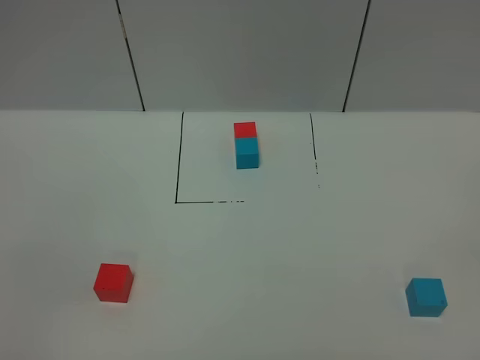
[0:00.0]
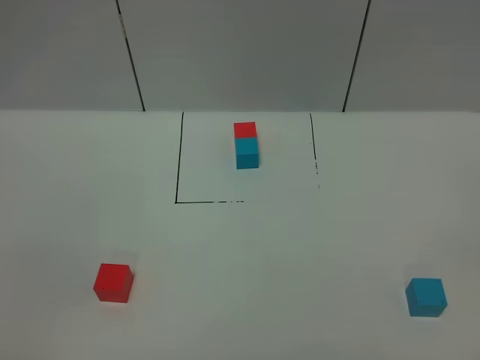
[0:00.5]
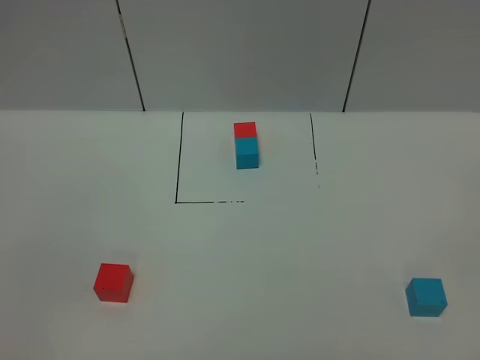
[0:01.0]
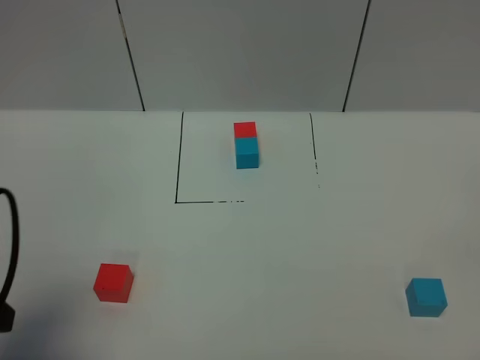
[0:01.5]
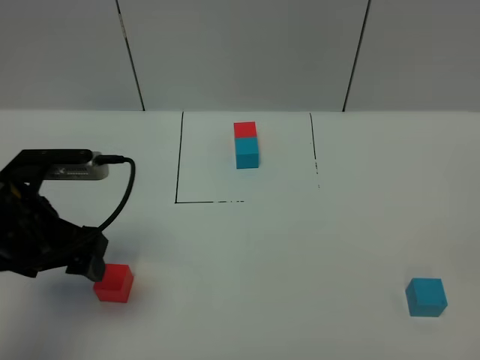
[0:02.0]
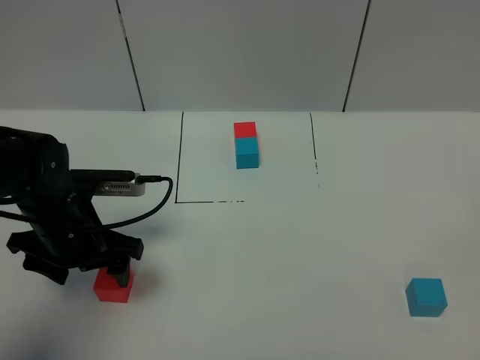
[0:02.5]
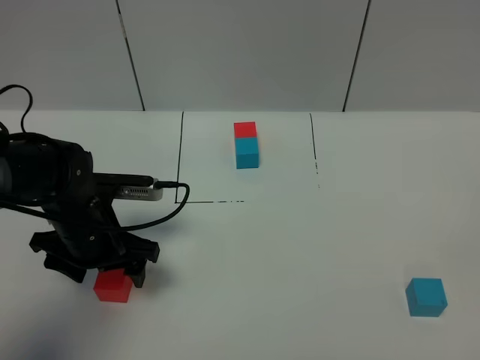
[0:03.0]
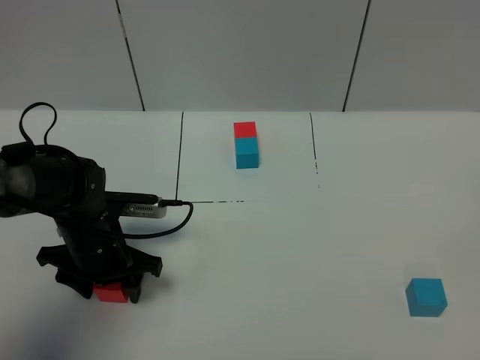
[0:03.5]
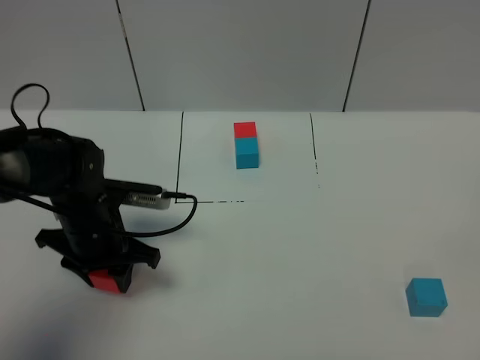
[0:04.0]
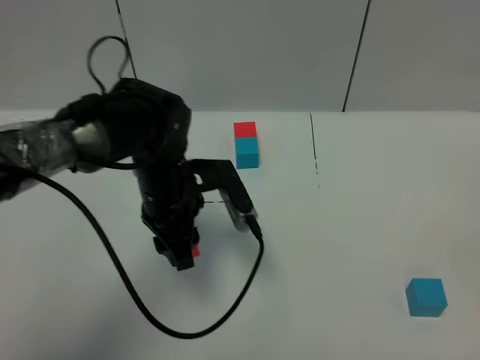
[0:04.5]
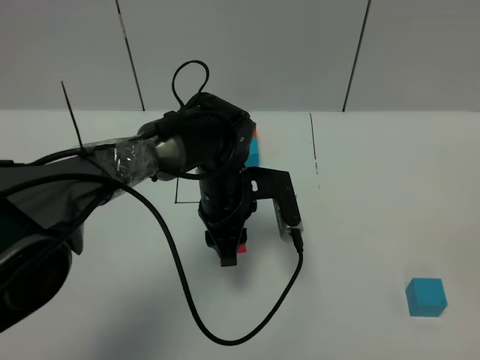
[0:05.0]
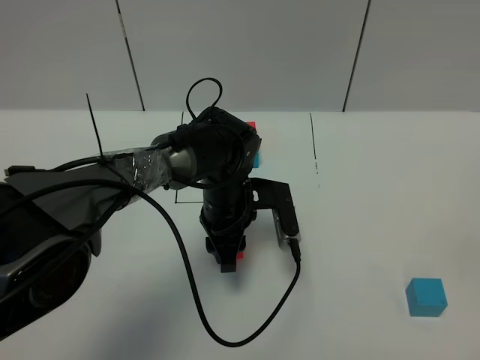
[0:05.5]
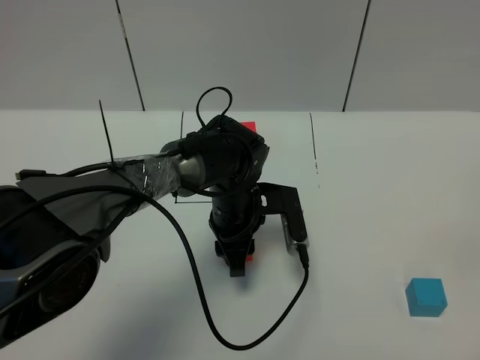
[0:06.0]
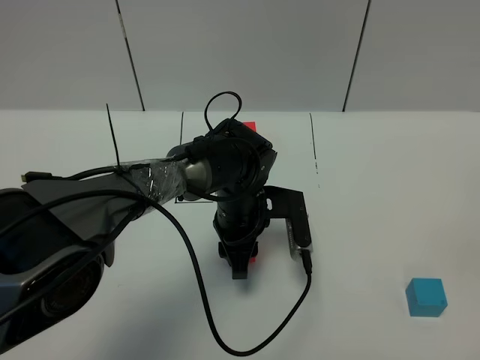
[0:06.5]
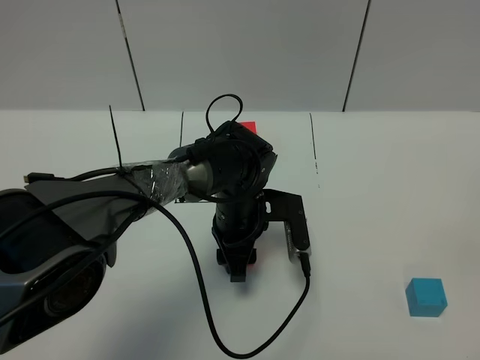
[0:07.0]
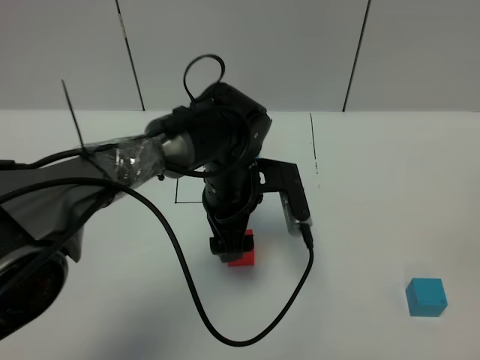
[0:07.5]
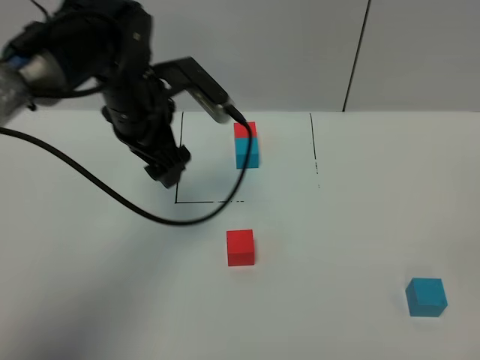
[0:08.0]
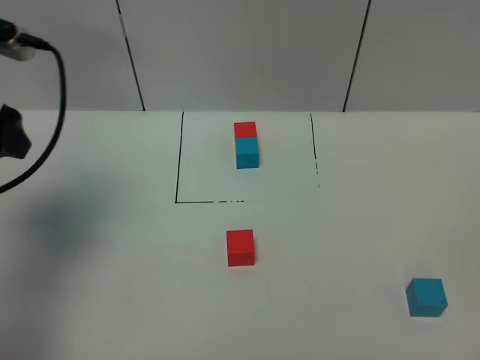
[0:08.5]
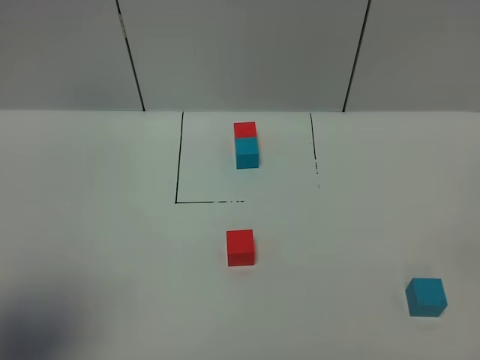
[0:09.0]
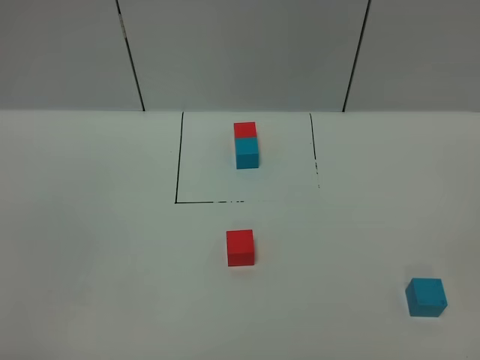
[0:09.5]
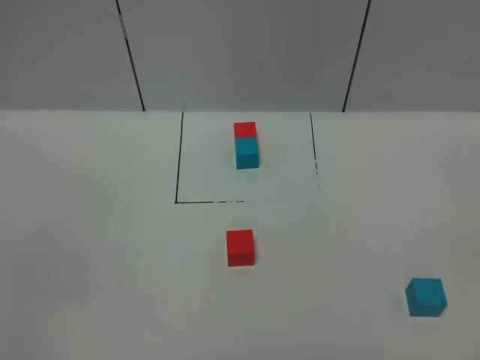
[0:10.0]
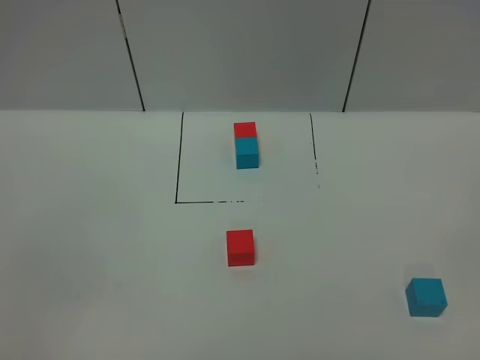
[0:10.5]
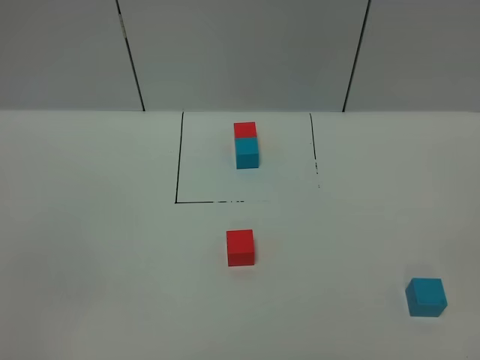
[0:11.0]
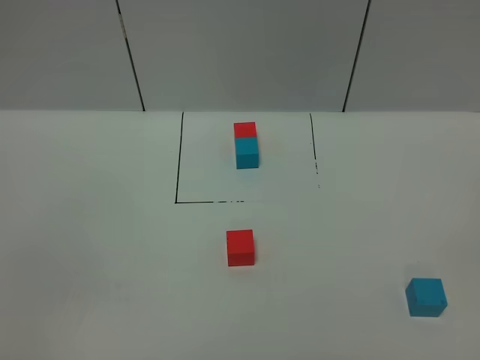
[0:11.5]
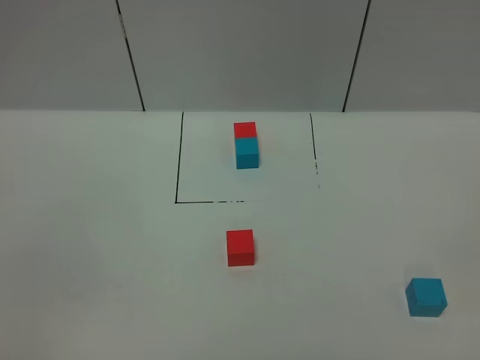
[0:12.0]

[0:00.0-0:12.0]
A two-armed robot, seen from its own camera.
Task of the whole recording: According to the building block template in front, assemble the scattered blocks together.
Step, 0:01.5 to 0:07.5: Put the red cube in the center of the table.
0:00.0 to 0:02.0: The left gripper moves forward, some 30 cm.
0:02.0 to 0:04.0: The left gripper is displaced downward and forward by approximately 10 cm, and closes its fingers.
0:04.0 to 0:06.0: The left gripper is displaced to the right by some 20 cm.
0:06.0 to 0:08.0: The left gripper shifts about 20 cm upward and to the left, and opens.
0:08.0 to 0:10.0: The left gripper travels backward by about 40 cm.
0:10.0 to 0:12.0: Both grippers stay put.

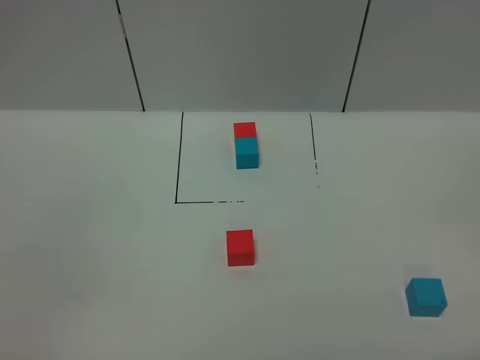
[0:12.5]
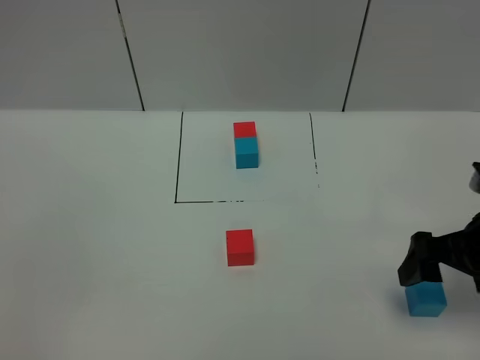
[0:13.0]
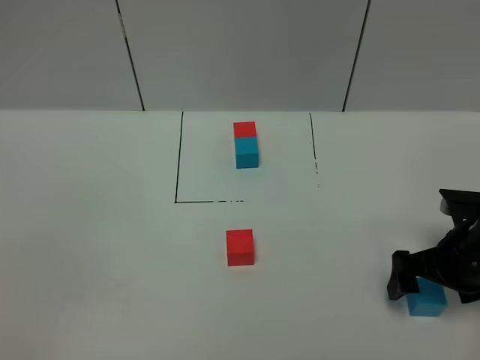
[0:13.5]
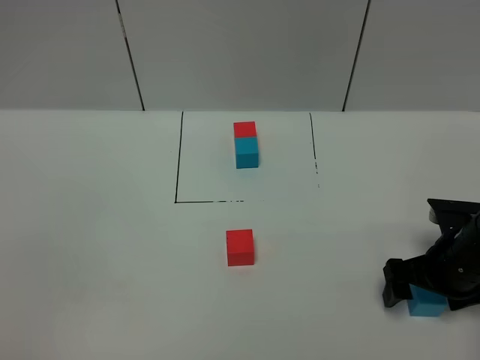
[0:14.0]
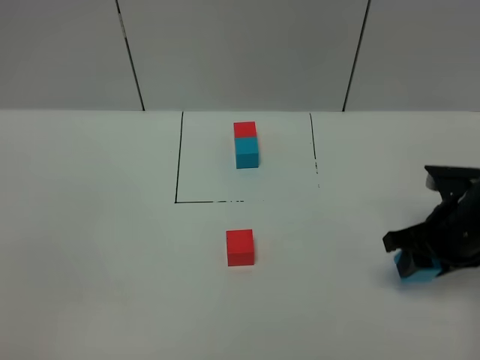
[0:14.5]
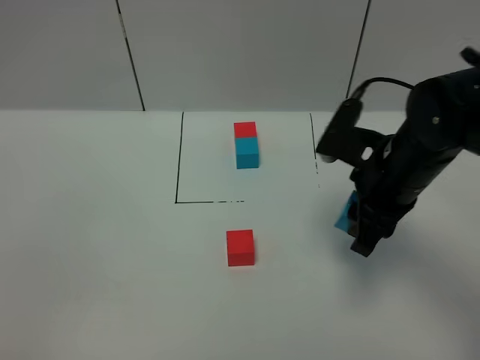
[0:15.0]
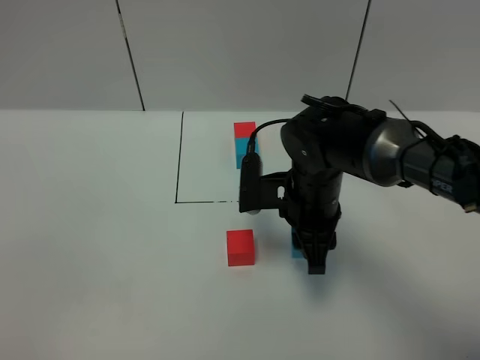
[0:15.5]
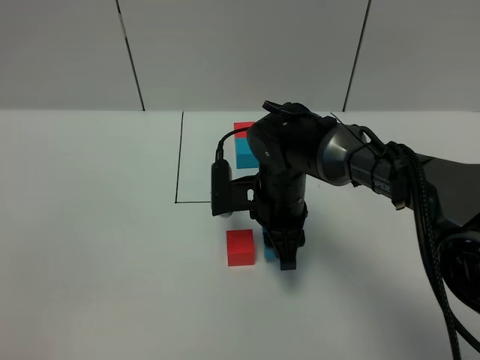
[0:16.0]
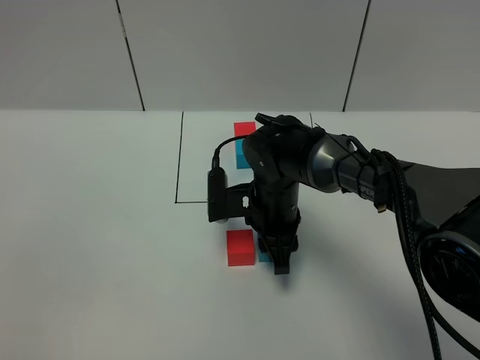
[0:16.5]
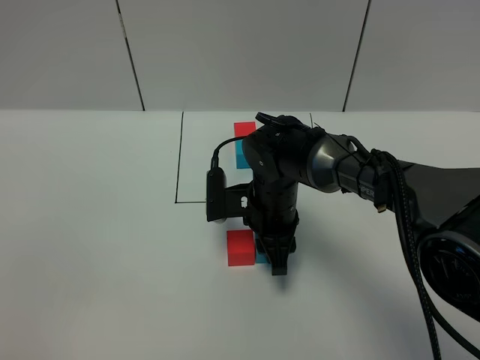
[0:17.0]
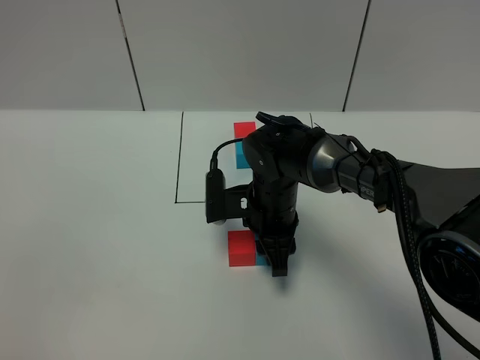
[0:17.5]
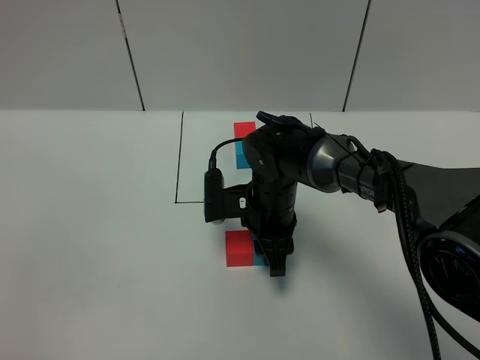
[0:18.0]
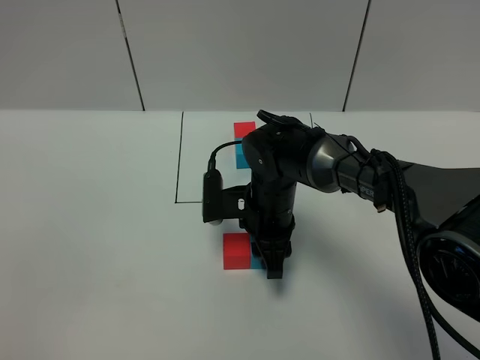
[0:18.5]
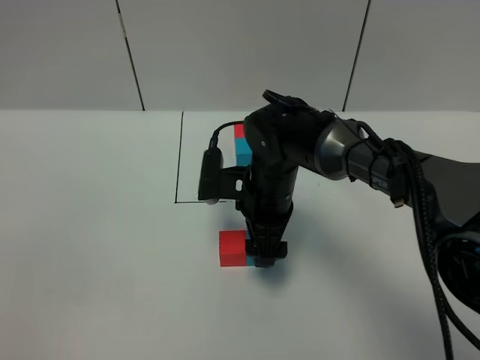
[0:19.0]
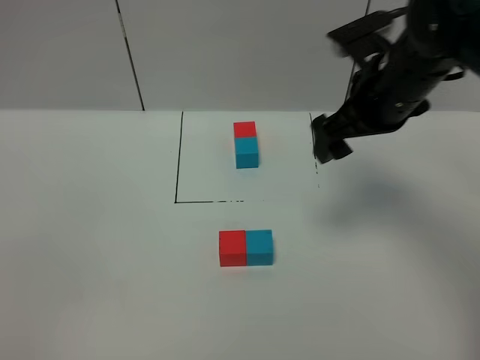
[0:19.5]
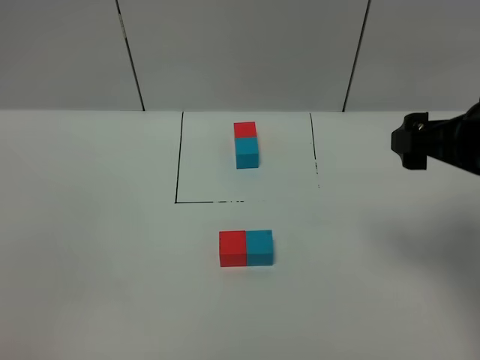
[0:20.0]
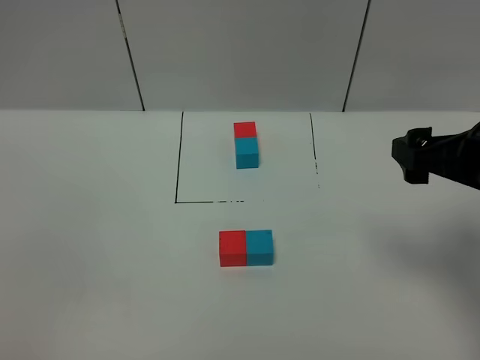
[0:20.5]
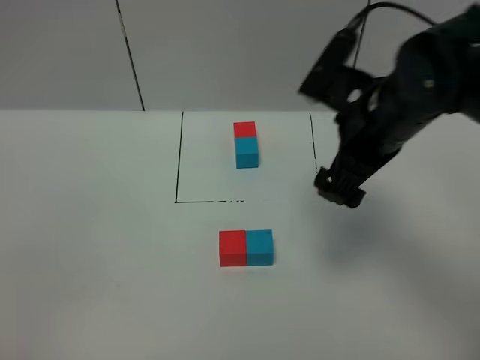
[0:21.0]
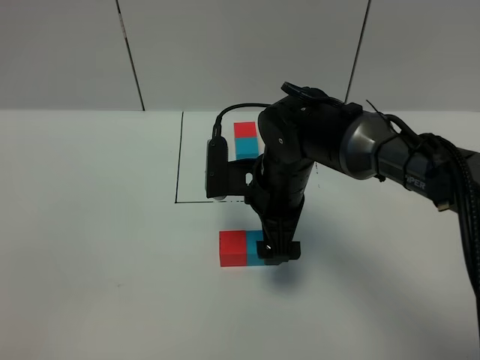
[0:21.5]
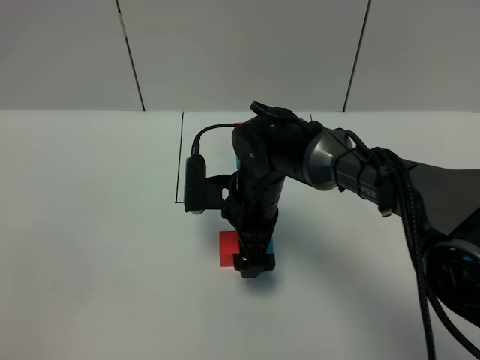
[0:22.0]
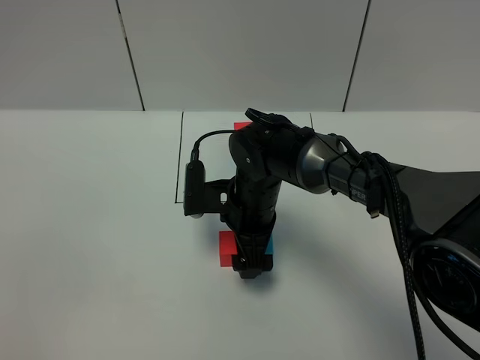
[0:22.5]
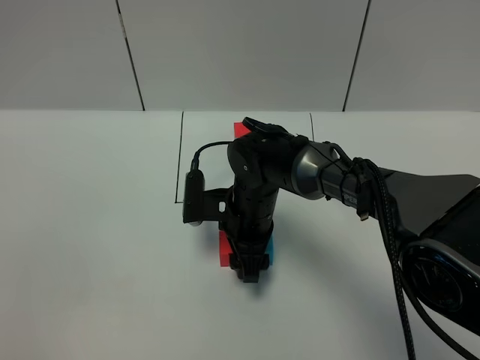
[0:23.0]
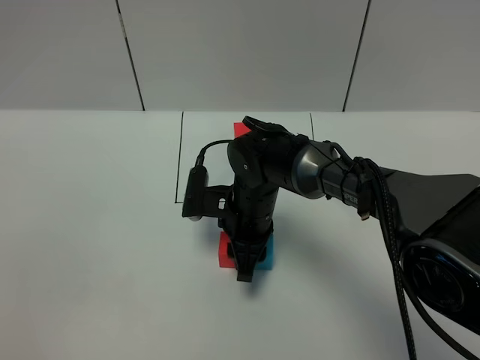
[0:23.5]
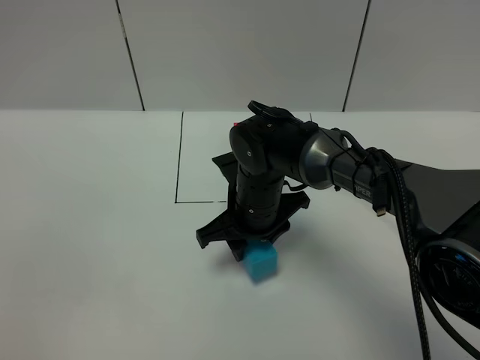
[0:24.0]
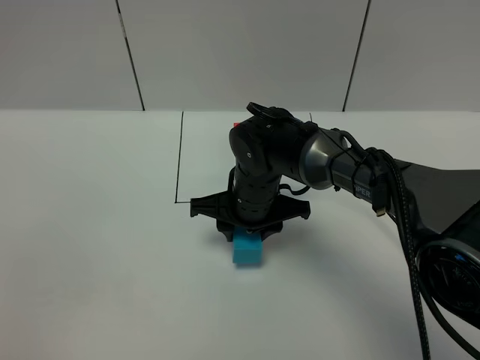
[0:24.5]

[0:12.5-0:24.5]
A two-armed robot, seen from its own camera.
Task of the whole recording: According to the building block template in front, assemble the scattered blocks together.
Step, 0:12.5 to 0:19.0: Put the blue cube on the right of the red cube.
0:12.5 to 0:14.5: The right gripper goes about 25 cm forward and downward, and closes.
0:14.5 to 0:16.5: The right gripper heads to the left, covering approximately 20 cm.
0:16.5 to 0:18.5: Both grippers stay about where they are.
0:18.5 to 0:20.5: The right gripper heads to the right, upward and backward, covering some 30 cm, and opens up.
0:20.5 to 0:22.5: The right gripper goes approximately 30 cm to the left, downward and forward.
0:22.5 to 0:24.5: The right gripper closes up.

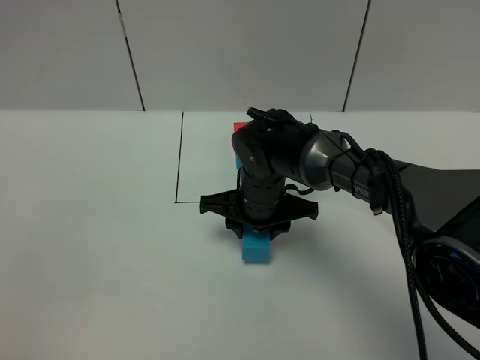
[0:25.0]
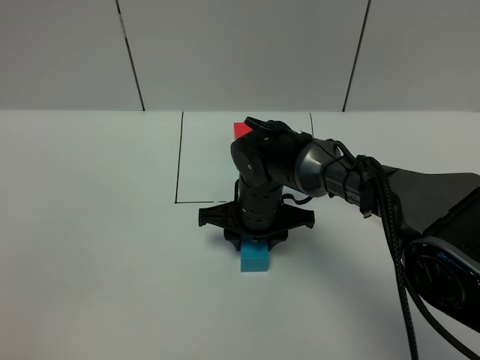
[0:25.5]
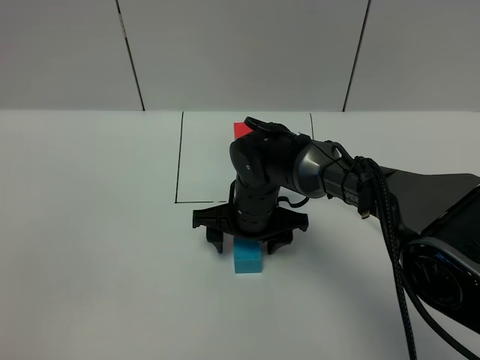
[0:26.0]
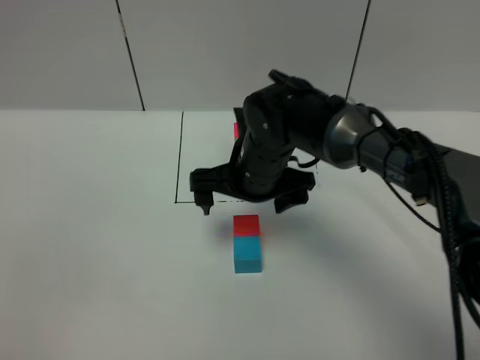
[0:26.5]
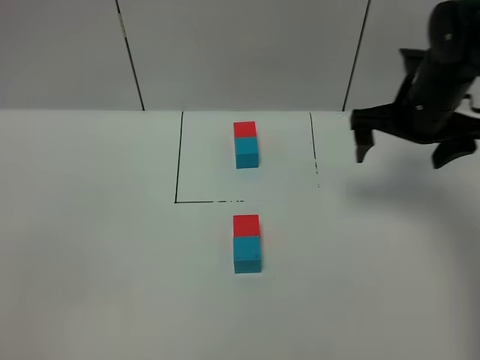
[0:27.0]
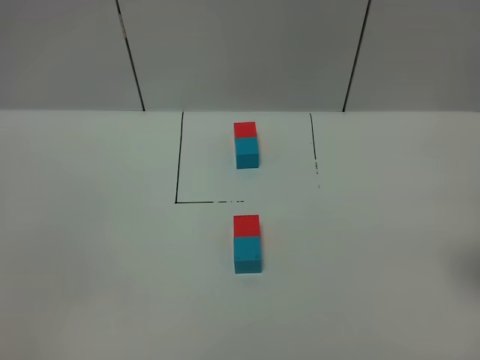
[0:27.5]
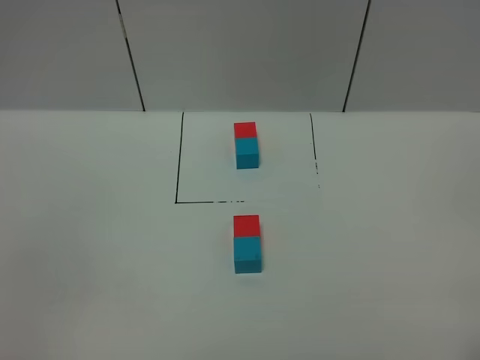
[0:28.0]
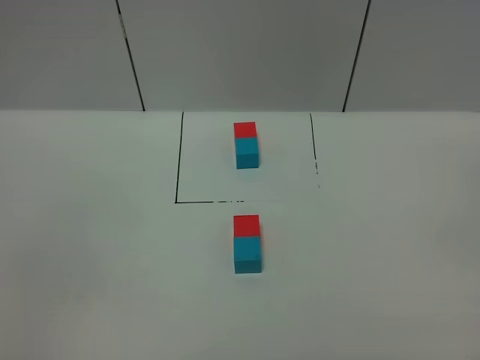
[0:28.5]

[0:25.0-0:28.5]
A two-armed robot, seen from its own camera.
Task of the whole recording: According to the building block template in front, assemble the scattered blocks together.
0:25.0 to 0:27.0: The right gripper is displaced to the right and upward by approximately 25 cm, and opens up.
0:27.0 to 0:28.5: The right gripper moves backward, about 35 cm.
